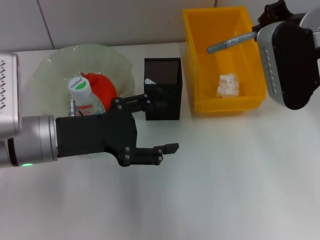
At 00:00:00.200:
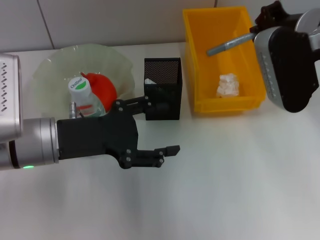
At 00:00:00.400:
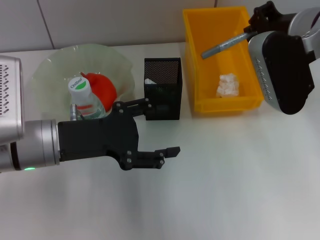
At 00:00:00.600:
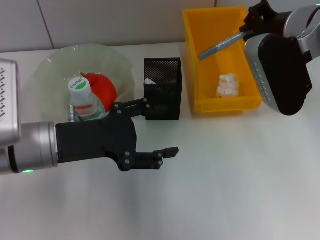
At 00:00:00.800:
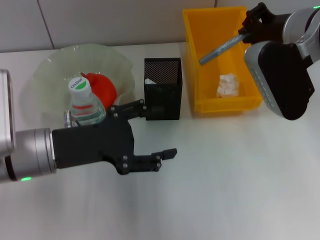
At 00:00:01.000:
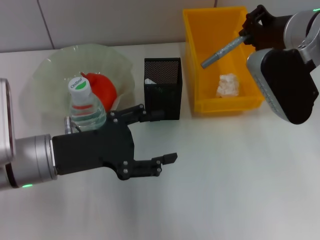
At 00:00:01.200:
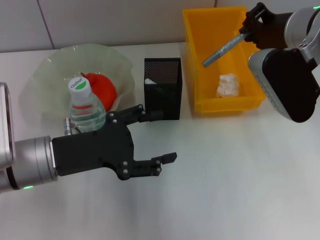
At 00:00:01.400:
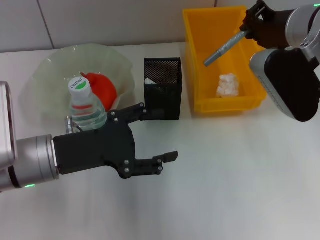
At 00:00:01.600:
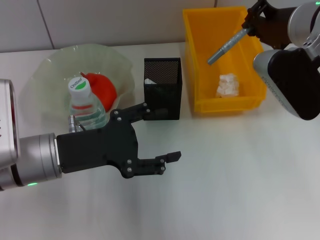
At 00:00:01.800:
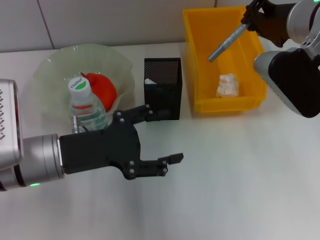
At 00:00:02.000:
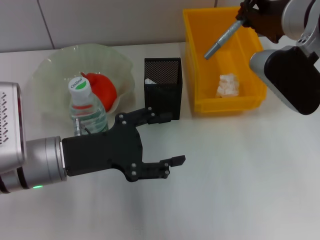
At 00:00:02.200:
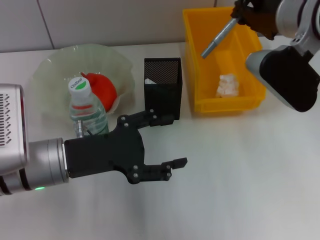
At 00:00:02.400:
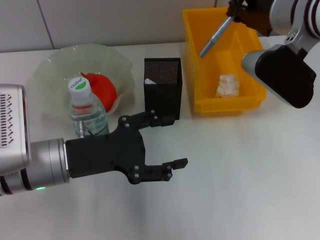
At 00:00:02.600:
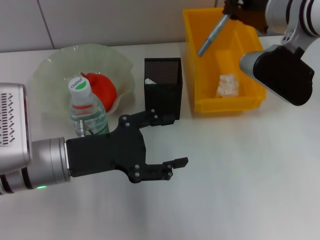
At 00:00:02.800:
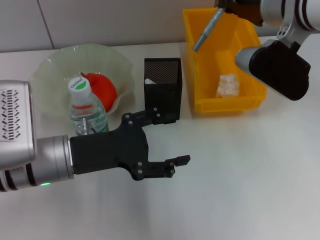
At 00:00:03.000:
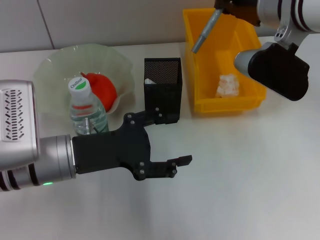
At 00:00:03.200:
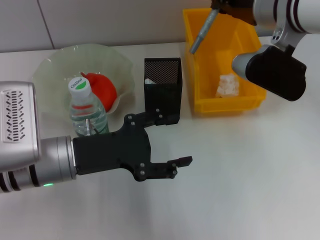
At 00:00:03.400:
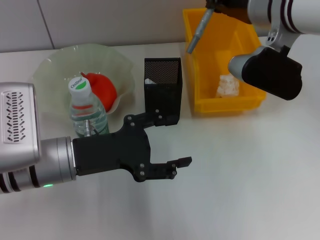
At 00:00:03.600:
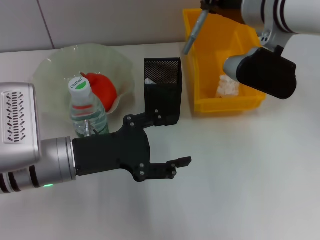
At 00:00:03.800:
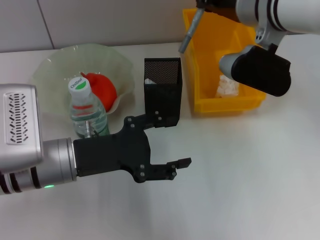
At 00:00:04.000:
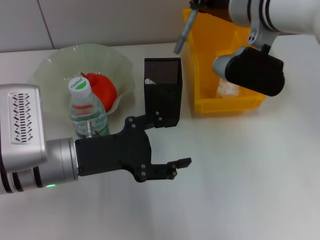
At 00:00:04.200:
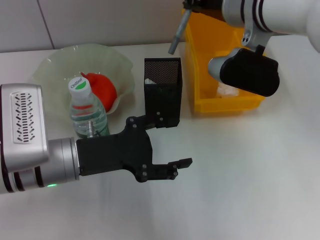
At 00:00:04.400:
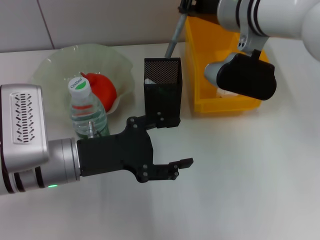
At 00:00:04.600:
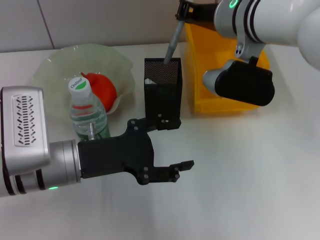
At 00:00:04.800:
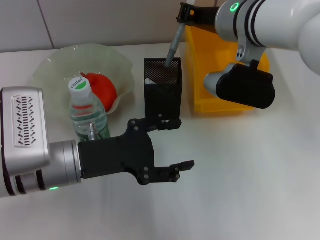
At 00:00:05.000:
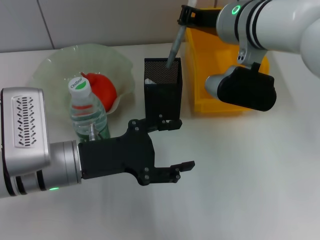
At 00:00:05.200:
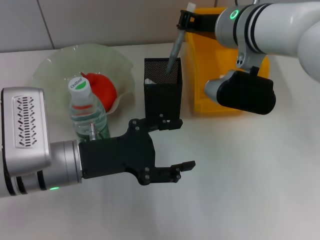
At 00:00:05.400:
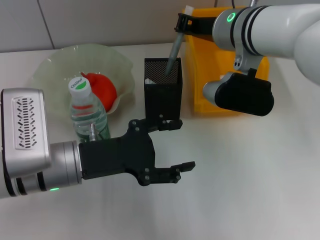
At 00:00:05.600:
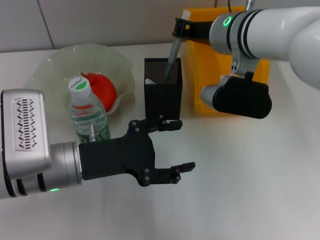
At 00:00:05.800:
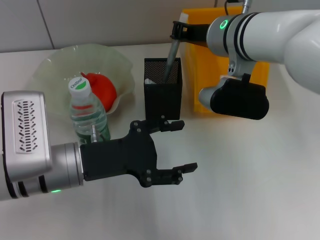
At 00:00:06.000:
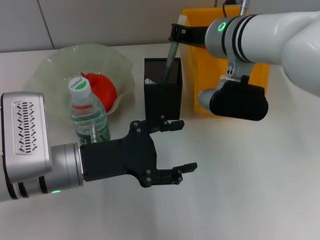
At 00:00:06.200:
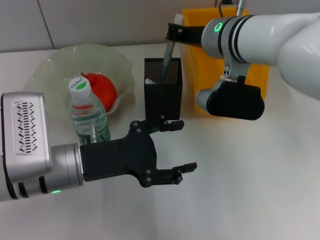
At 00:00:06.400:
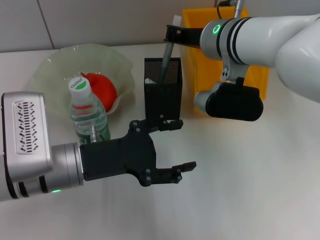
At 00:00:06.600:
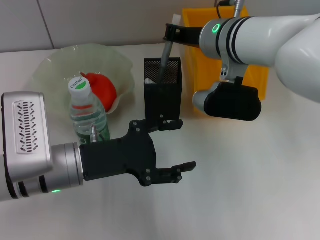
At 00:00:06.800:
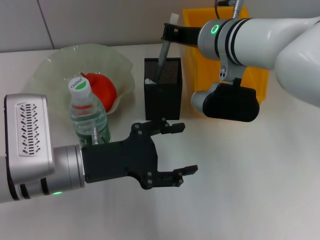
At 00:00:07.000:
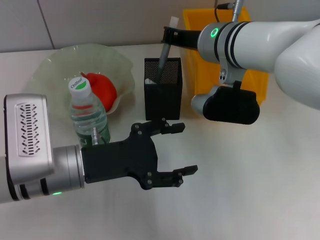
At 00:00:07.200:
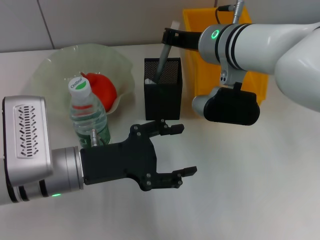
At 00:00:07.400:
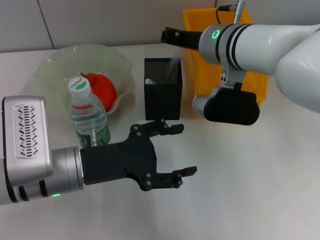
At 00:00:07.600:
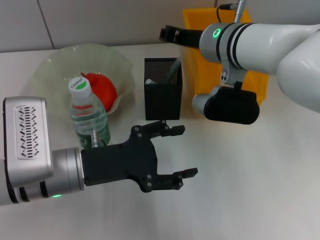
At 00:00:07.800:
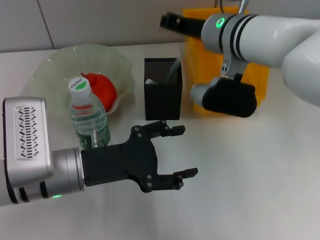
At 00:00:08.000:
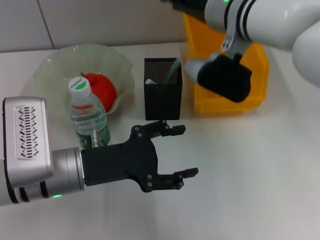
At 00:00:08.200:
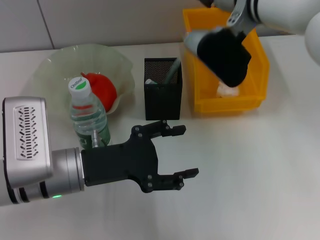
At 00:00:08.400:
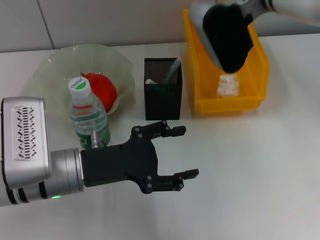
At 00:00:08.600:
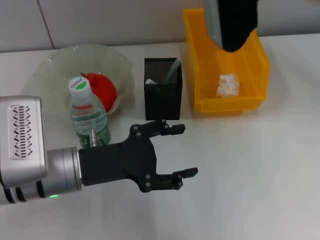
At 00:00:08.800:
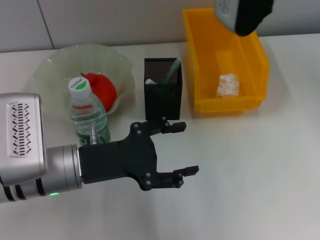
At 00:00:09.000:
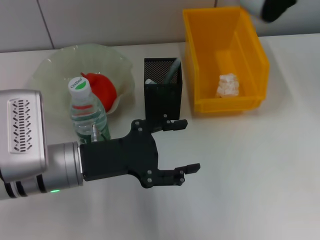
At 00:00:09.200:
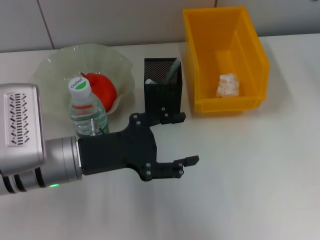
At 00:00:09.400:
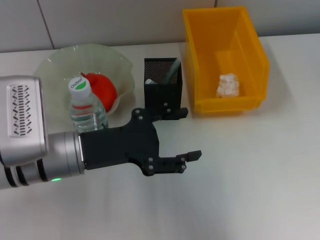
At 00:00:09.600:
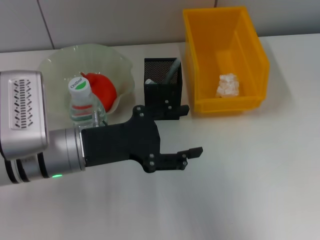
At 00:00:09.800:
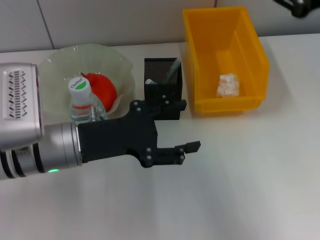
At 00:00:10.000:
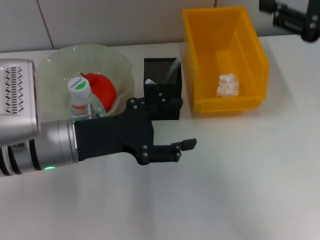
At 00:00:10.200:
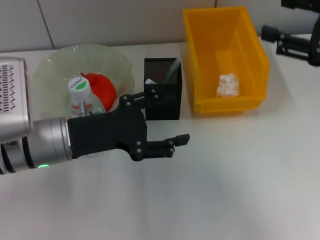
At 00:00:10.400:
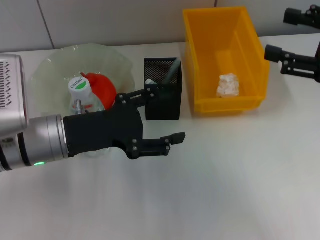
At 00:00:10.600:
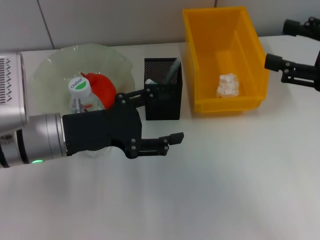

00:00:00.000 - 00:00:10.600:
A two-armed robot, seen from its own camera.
Step, 00:00:00.000 - 00:00:07.400: Place the gray glue into the pen holder with the right hand.
00:00:03.000 - 00:00:04.600: The right gripper changes place by approximately 5 cm.
00:00:04.600 - 00:00:06.000: The grippers stay close to where they were, moving slightly.
00:00:06.000 - 00:00:07.600: Both grippers stay put.
00:00:07.600 - 00:00:09.000: The right gripper is displaced upward and to the right by approximately 15 cm.
00:00:09.000 - 00:00:10.600: The right gripper shifts approximately 20 cm to the right, backward and downward, and opens its fingers.

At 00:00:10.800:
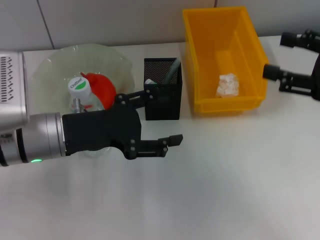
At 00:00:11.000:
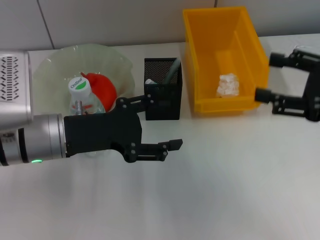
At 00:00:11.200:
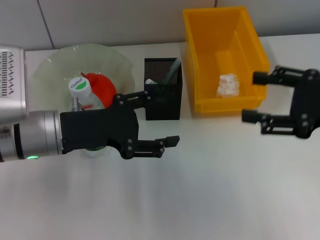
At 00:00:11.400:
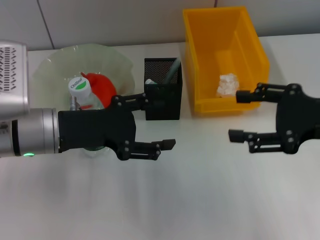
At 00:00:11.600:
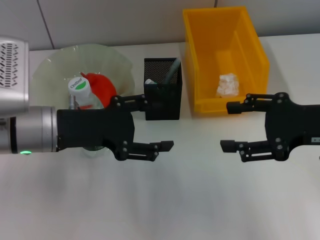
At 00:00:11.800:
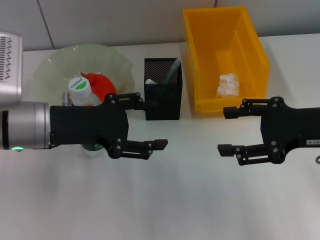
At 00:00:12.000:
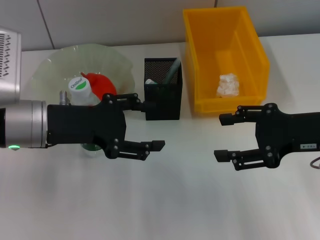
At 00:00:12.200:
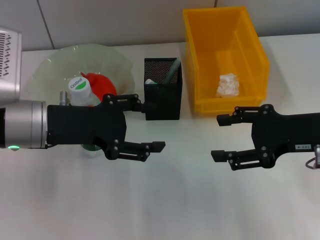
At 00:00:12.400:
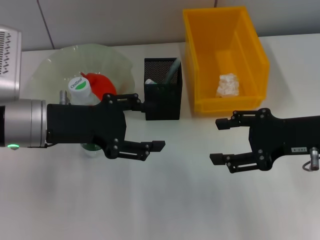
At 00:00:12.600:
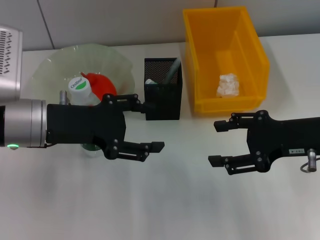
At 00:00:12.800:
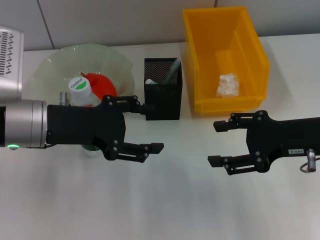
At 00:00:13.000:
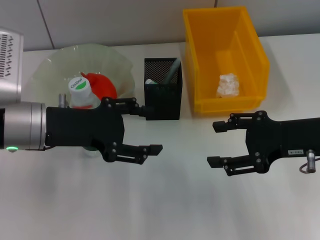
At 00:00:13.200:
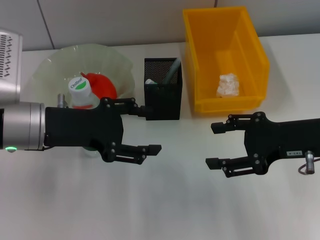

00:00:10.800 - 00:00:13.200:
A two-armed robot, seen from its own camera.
00:00:10.800 - 00:00:12.000: The right gripper goes roughly 5 cm to the left.
00:00:12.000 - 00:00:13.200: The grippers move only a little.
